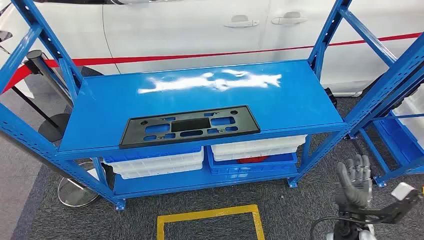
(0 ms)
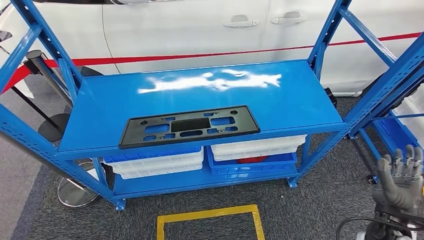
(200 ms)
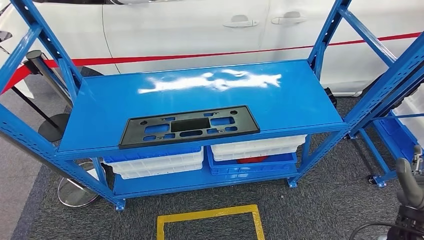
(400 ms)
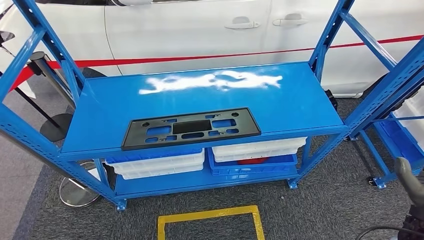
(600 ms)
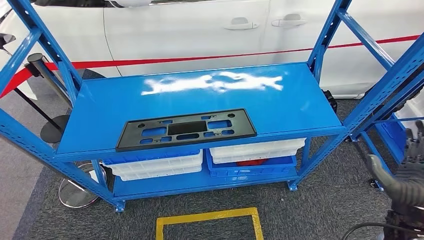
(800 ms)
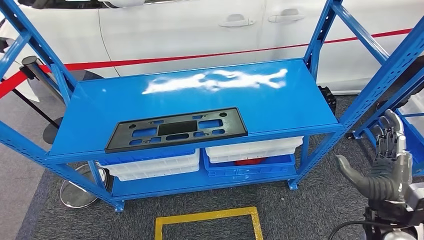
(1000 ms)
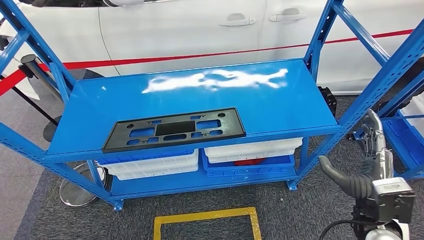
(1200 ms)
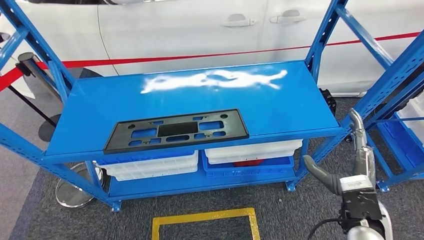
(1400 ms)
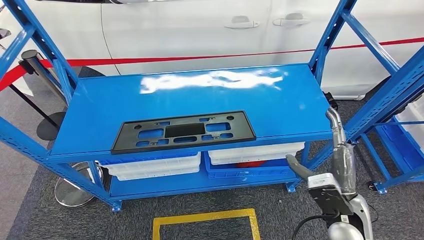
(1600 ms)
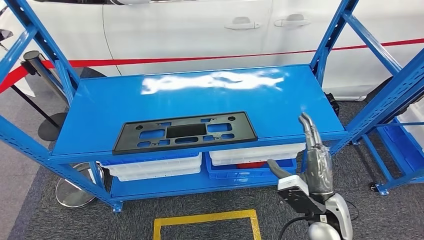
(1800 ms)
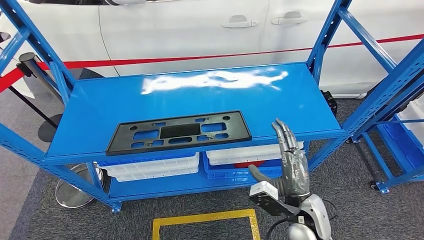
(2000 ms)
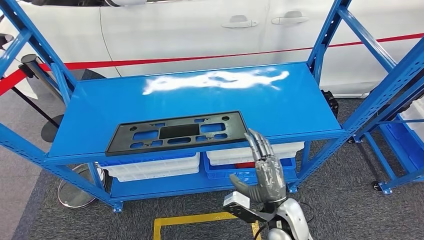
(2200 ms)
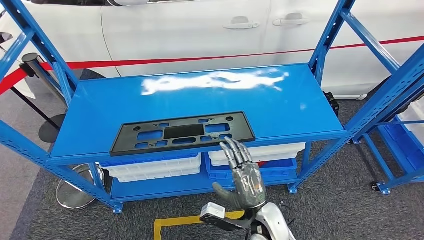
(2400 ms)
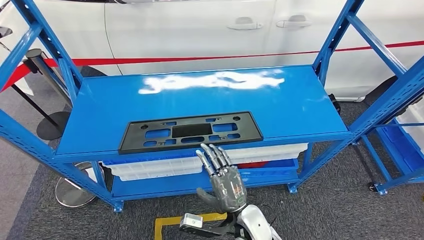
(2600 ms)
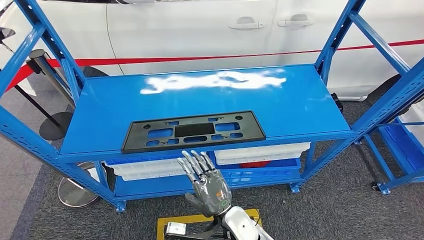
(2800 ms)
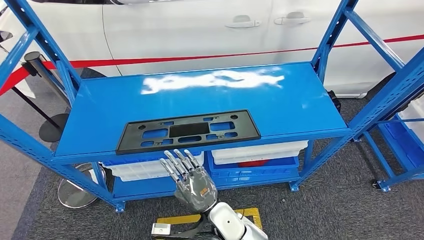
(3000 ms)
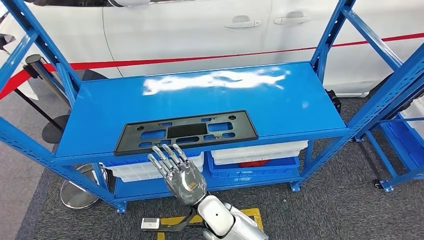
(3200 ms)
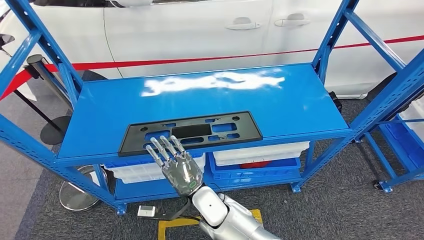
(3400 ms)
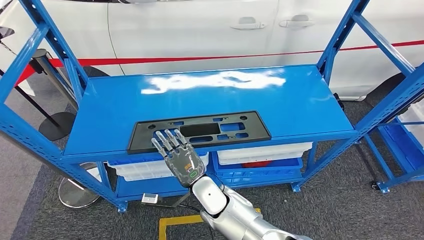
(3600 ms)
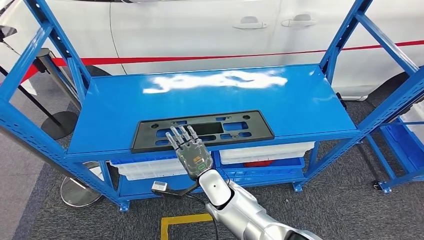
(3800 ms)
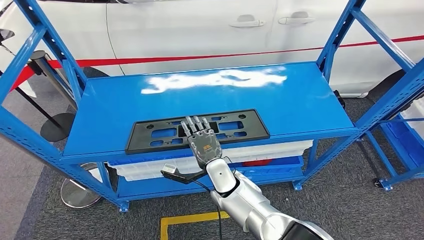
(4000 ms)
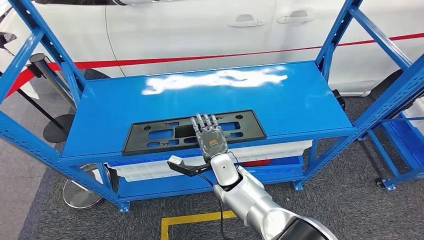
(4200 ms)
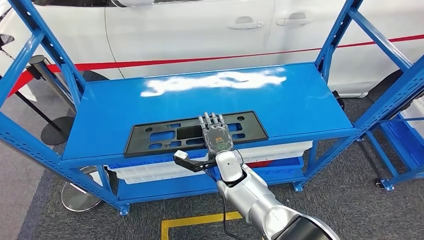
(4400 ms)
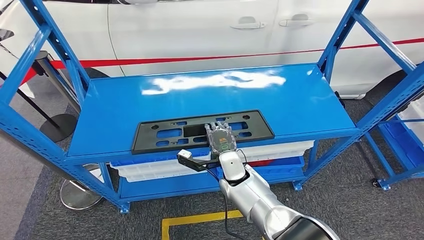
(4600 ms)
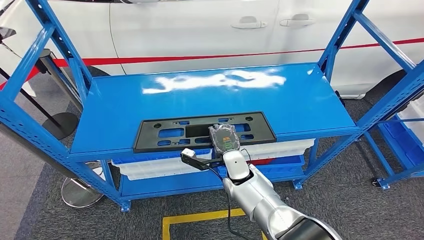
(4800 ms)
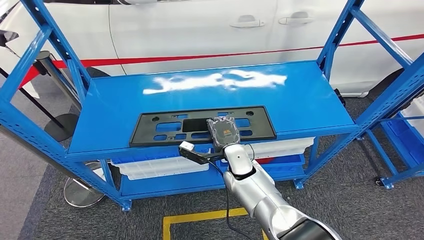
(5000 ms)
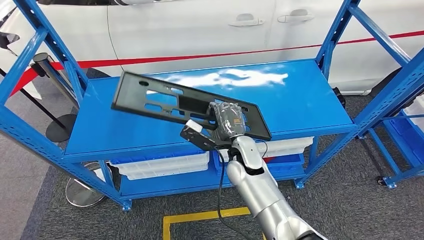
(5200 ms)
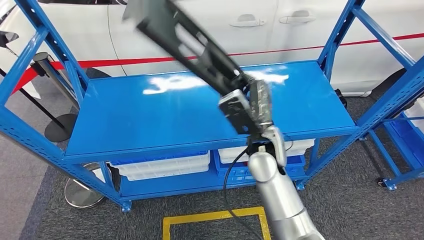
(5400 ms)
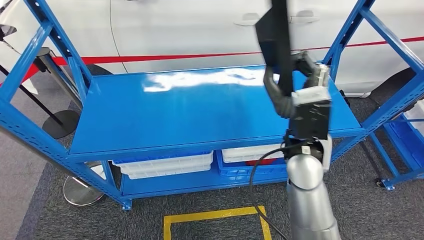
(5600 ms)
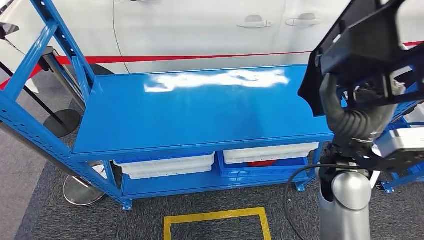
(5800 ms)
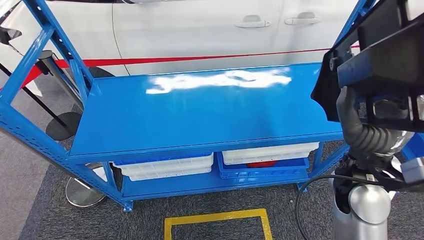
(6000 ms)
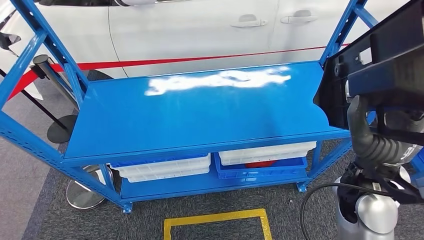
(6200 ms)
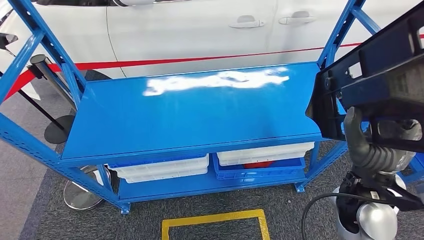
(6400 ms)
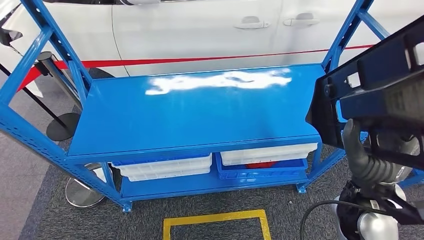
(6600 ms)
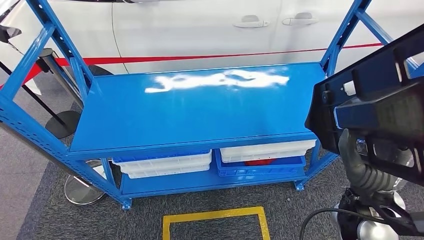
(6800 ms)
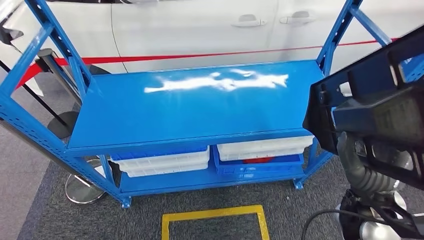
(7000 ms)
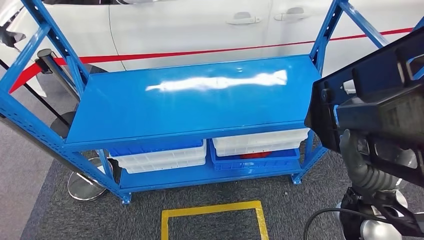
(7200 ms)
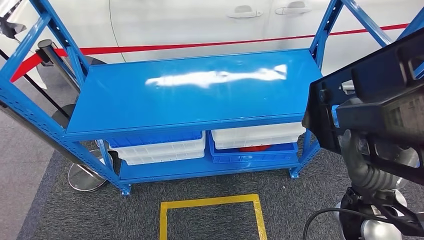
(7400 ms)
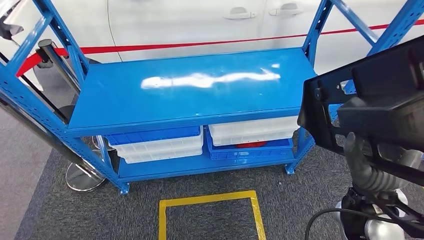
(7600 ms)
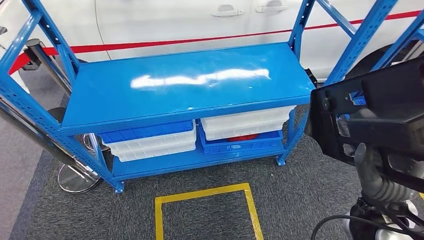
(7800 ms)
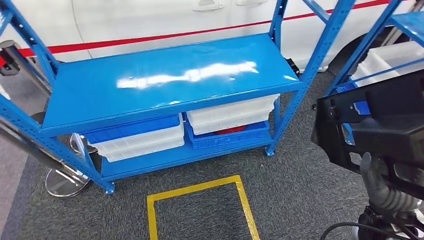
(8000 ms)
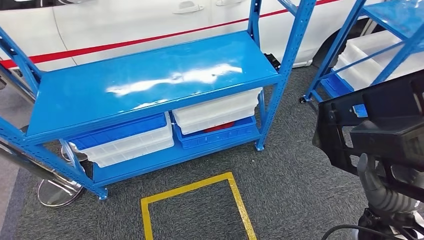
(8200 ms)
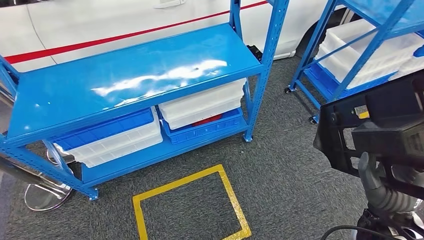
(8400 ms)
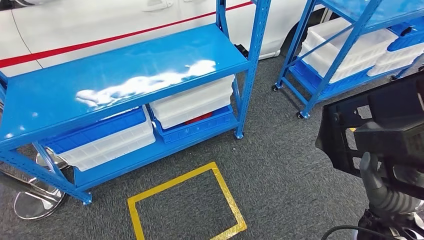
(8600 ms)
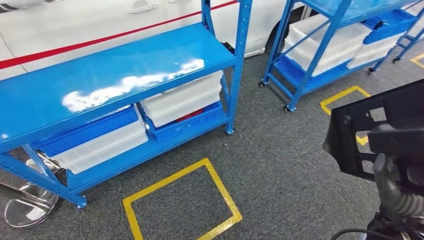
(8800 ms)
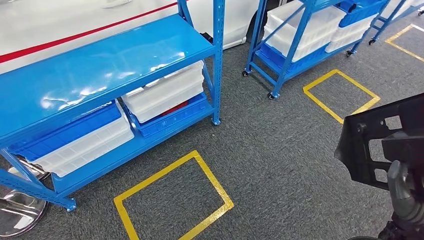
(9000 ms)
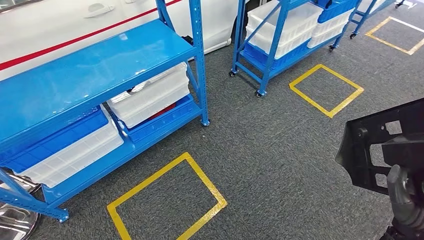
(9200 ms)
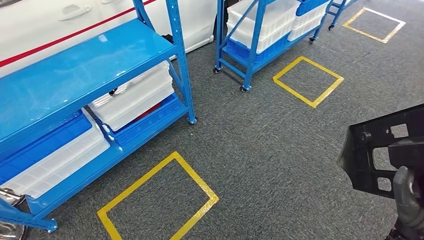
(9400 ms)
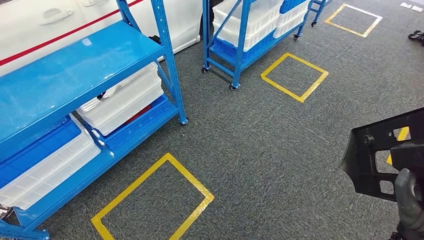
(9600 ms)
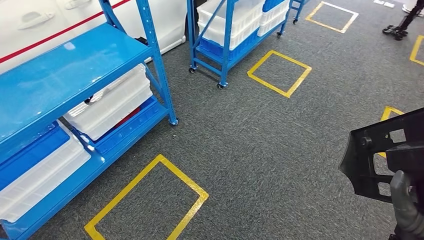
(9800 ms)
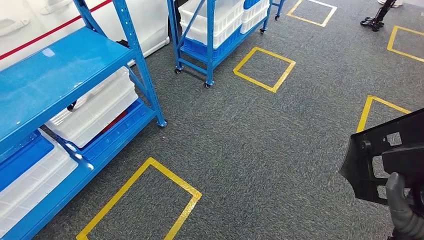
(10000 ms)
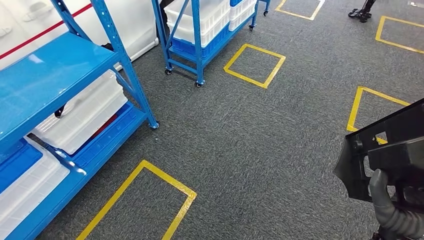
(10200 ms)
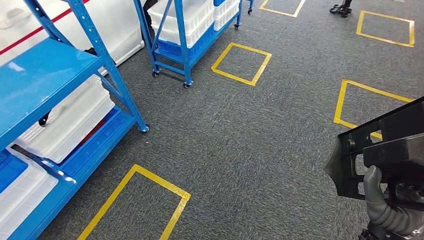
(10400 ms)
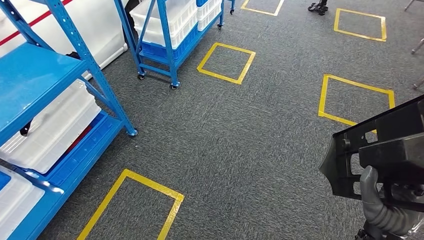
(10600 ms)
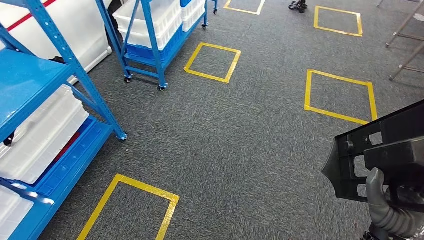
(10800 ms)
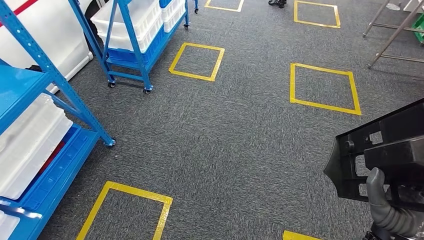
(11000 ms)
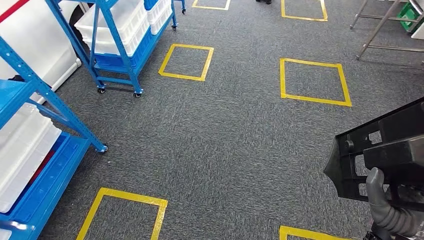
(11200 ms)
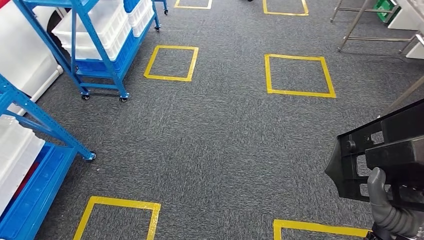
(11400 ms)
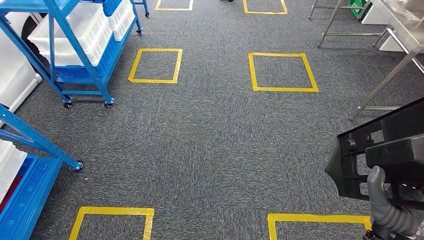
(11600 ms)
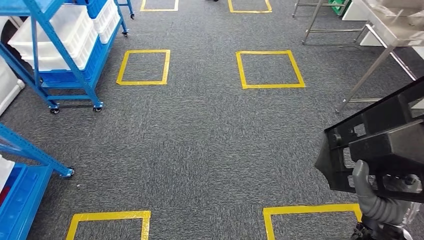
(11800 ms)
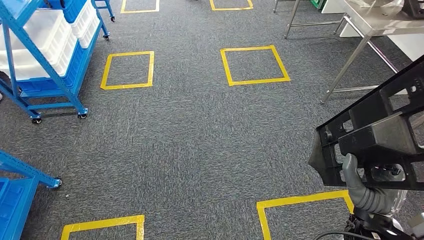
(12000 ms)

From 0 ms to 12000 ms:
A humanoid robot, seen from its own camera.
Step, from 0 ms to 6400 ms: Pick up the large material from the shelf.
From 1600 ms to 3000 ms: The right hand heads to the left, covering roughly 25 cm.

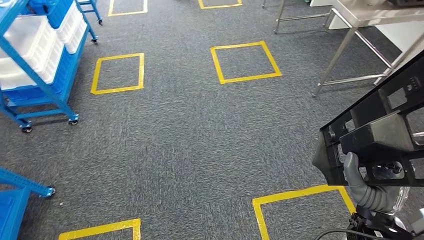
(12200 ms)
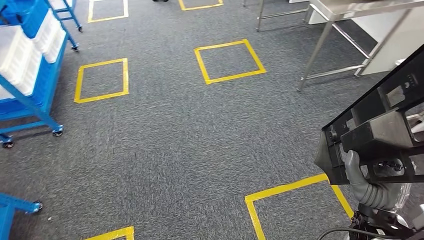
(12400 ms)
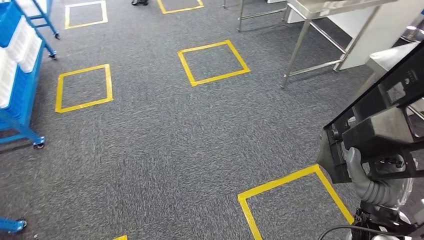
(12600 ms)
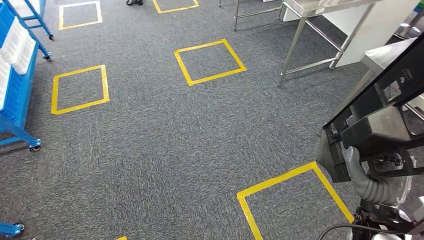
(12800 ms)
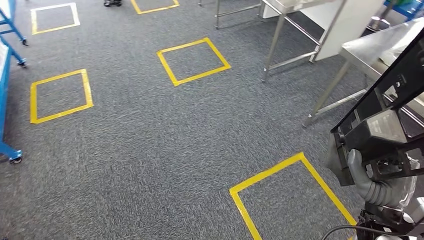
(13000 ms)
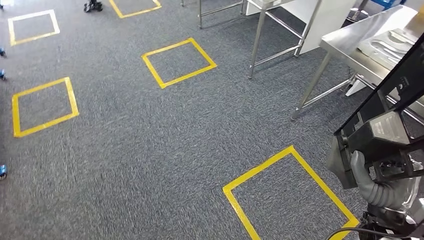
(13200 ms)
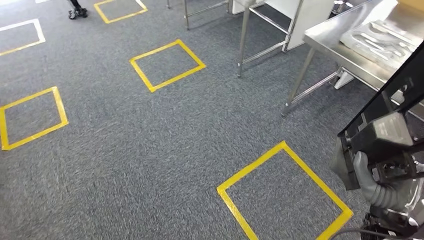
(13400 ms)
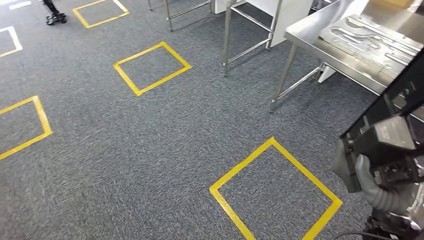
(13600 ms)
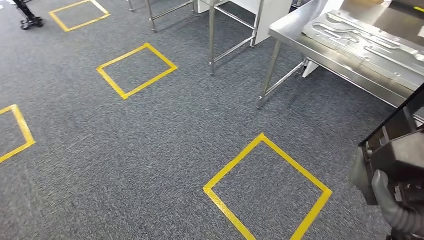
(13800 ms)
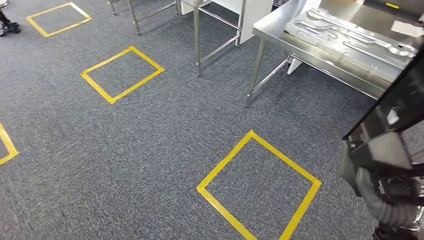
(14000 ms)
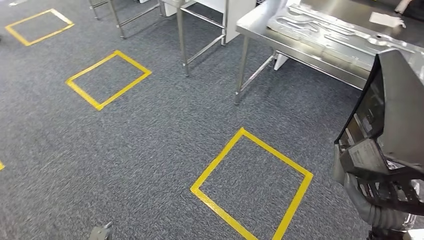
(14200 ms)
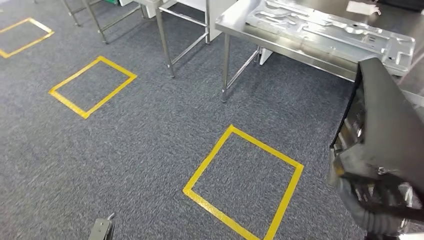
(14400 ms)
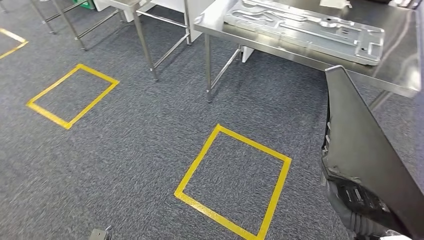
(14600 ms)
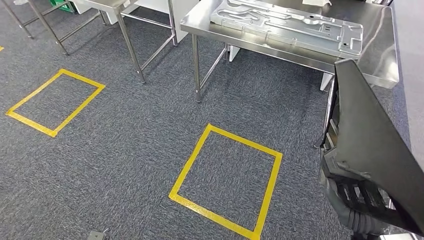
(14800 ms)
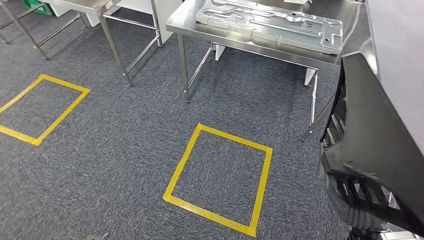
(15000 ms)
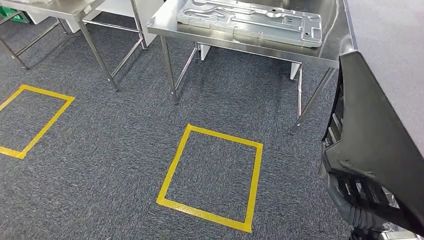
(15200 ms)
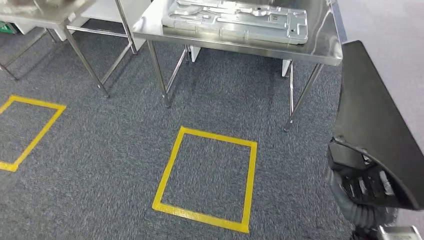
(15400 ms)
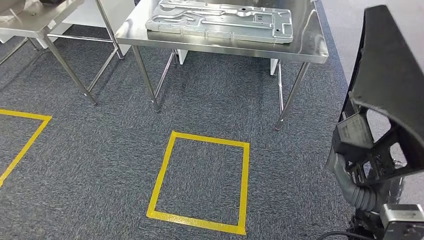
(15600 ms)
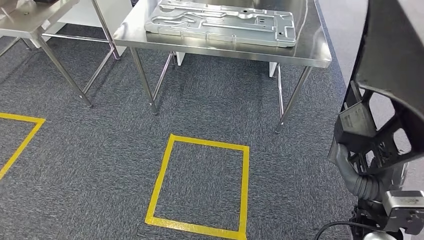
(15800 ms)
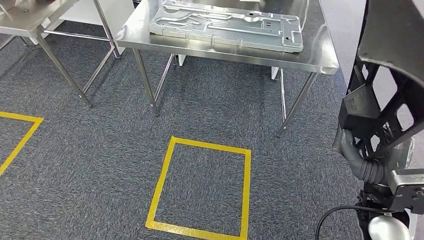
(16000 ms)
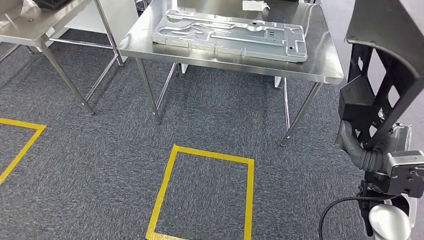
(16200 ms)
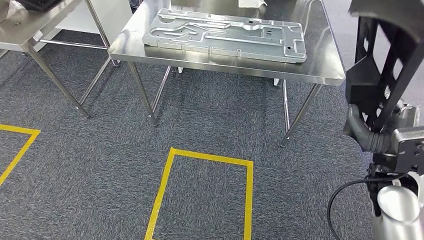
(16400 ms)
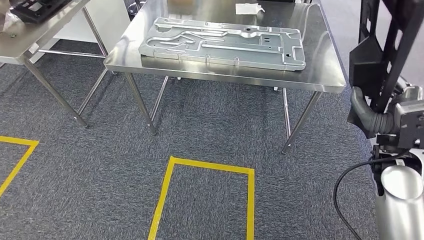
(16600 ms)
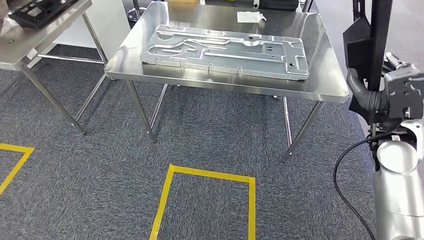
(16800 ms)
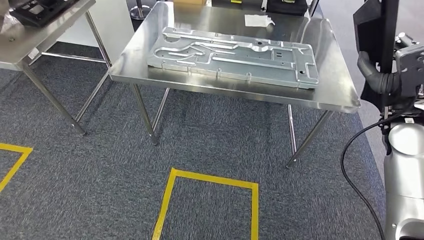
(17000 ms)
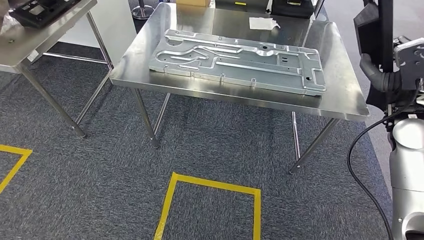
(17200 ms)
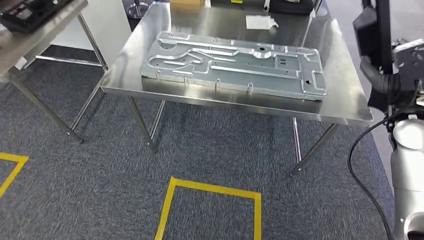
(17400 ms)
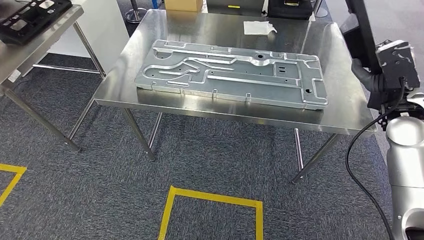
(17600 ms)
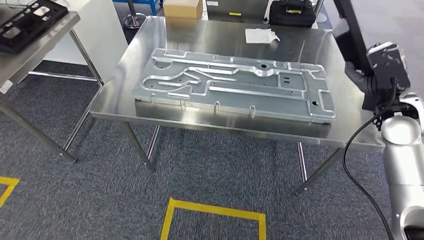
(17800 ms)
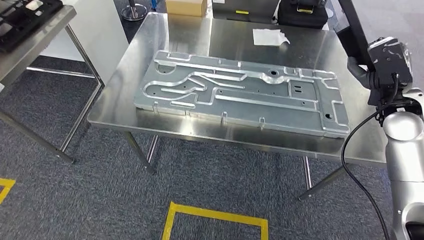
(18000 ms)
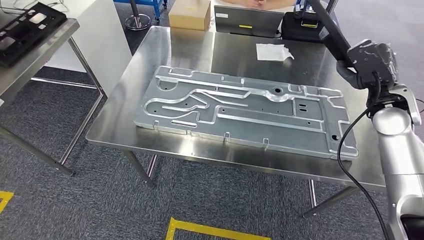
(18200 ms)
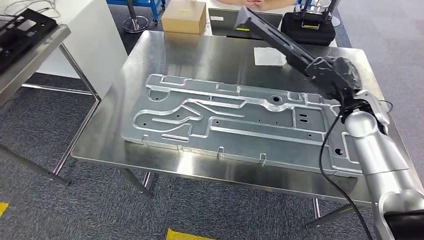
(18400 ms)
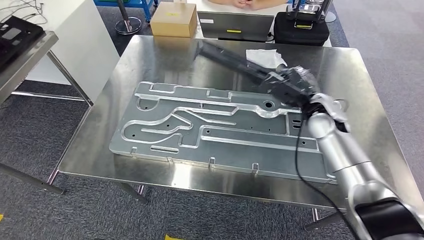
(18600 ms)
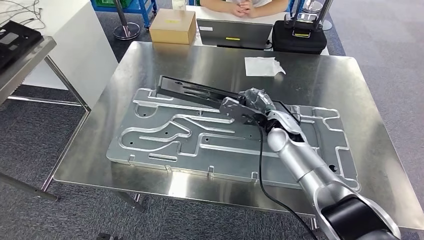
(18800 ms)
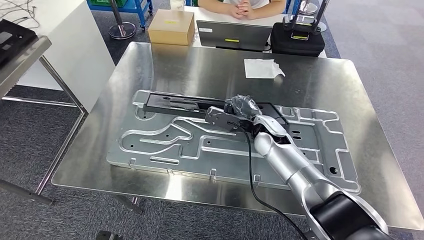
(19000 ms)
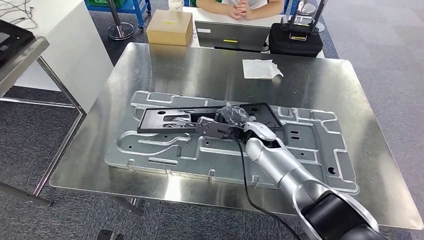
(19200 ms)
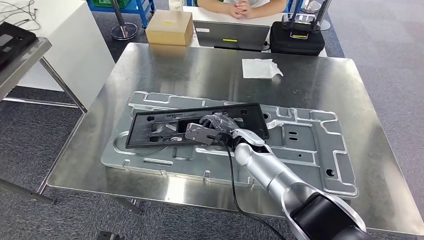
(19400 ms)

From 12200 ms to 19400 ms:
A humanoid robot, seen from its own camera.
Step, from 12800 ms to 18400 ms: Move the large material to the workbench.
